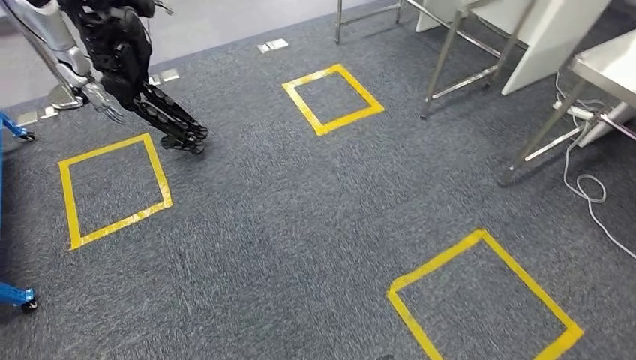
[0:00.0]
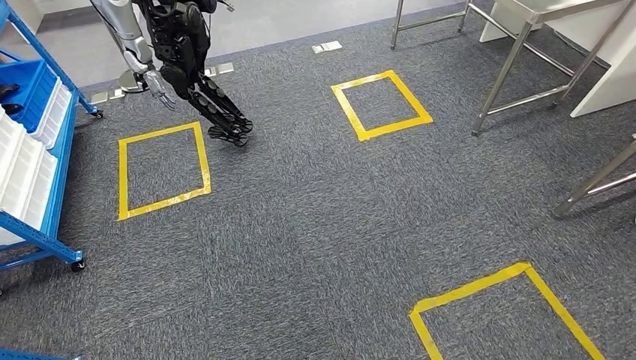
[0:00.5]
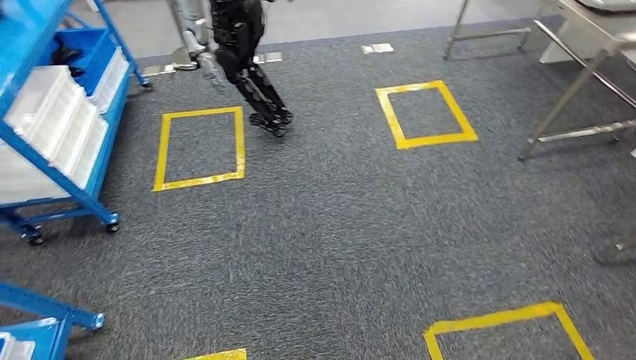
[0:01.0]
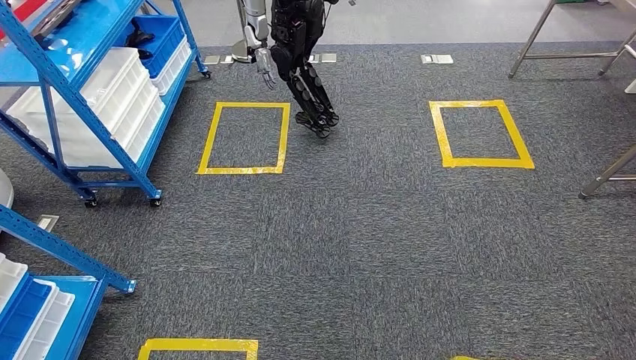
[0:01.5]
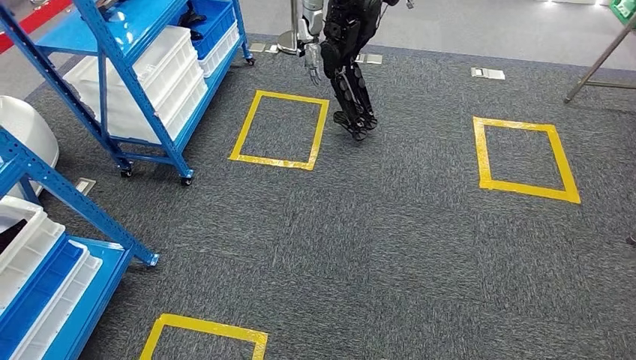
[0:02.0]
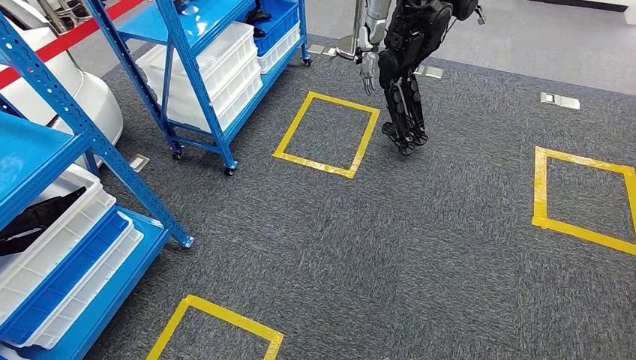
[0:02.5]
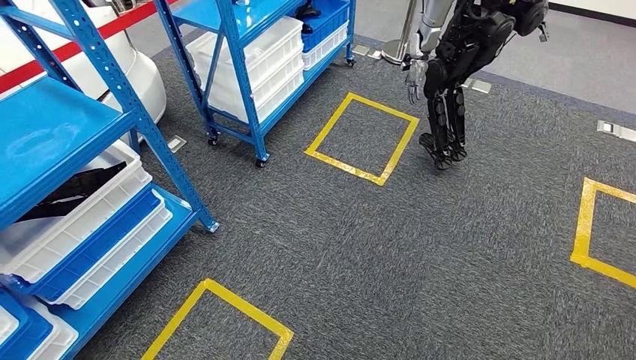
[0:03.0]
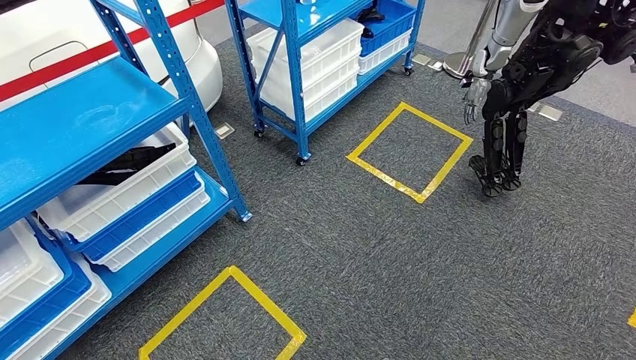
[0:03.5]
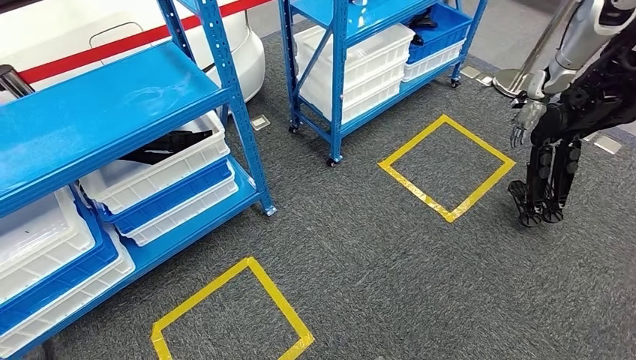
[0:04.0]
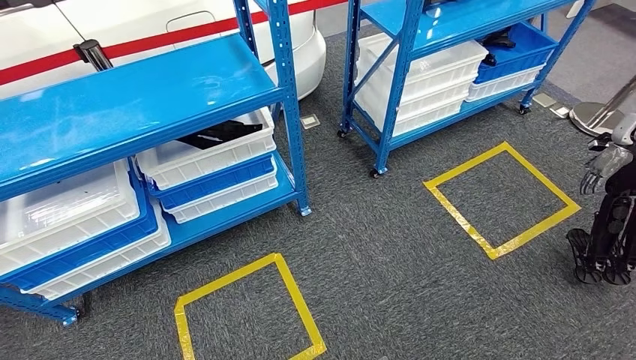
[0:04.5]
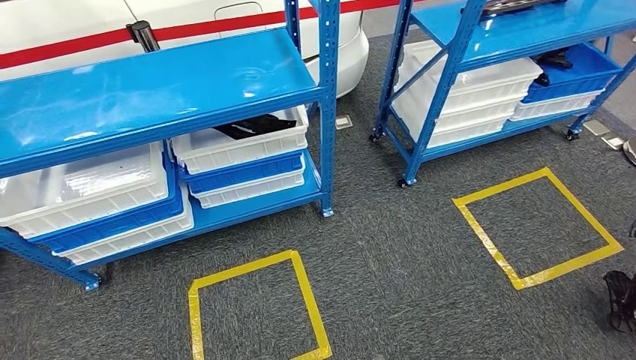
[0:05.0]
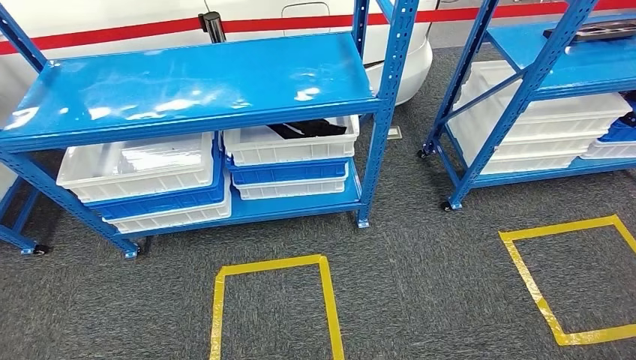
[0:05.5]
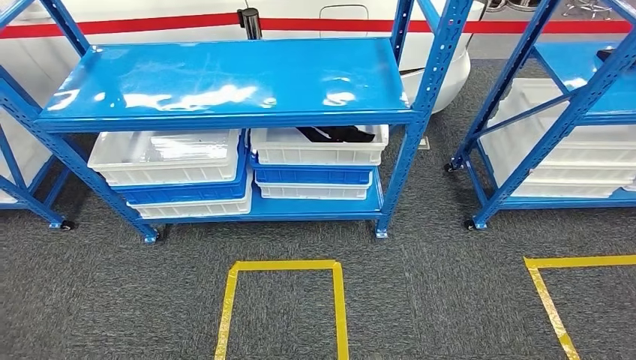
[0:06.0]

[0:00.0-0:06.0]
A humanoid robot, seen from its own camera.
Step, 0:00.0 to 0:06.0: Return to the initial position at the shelf.
